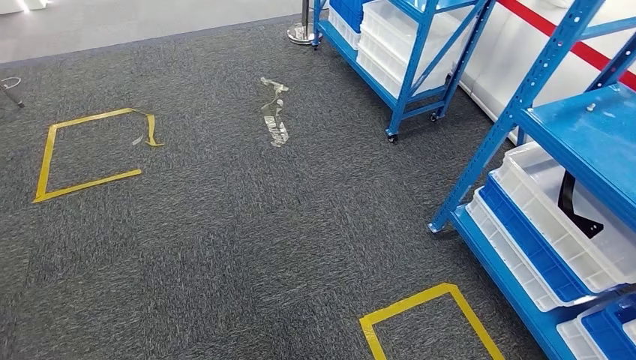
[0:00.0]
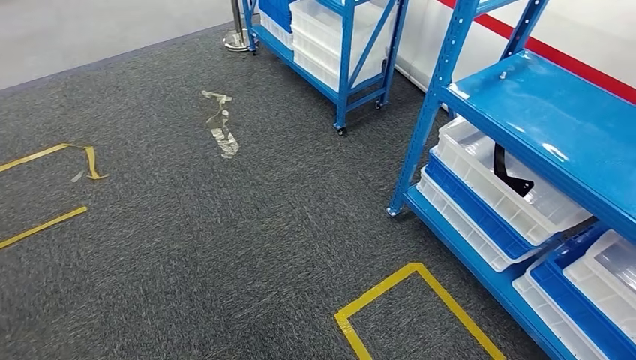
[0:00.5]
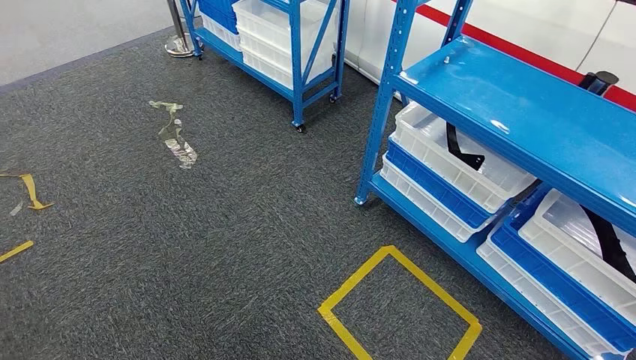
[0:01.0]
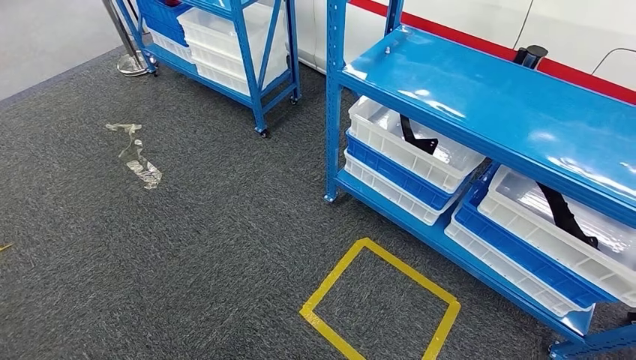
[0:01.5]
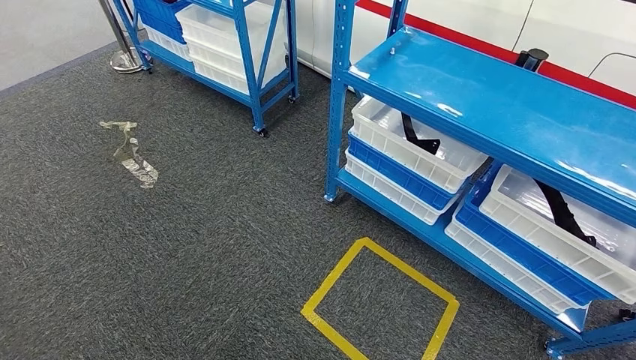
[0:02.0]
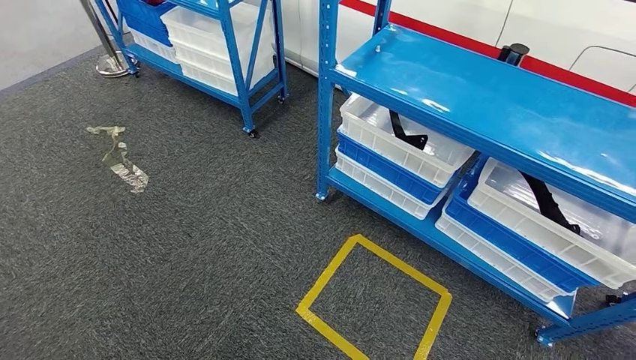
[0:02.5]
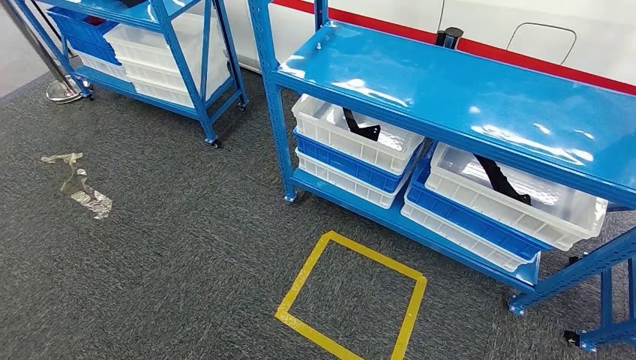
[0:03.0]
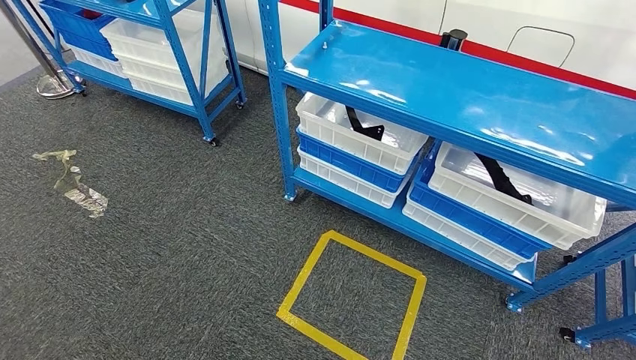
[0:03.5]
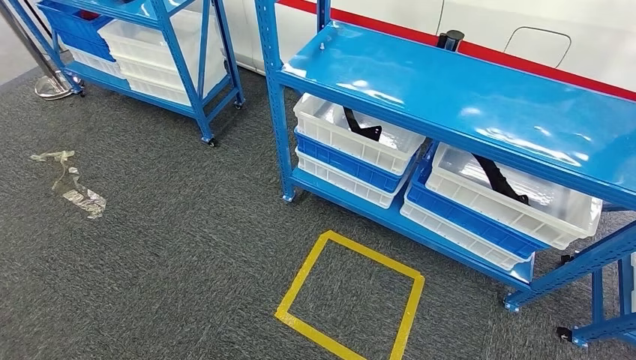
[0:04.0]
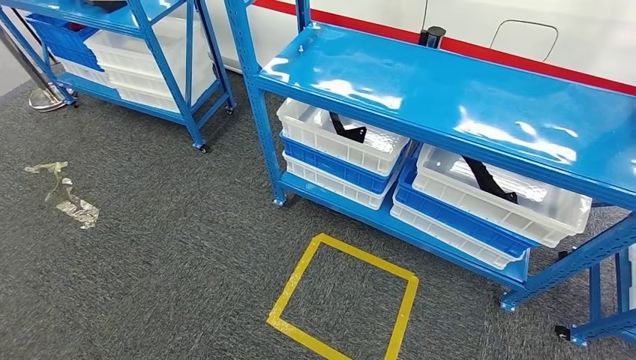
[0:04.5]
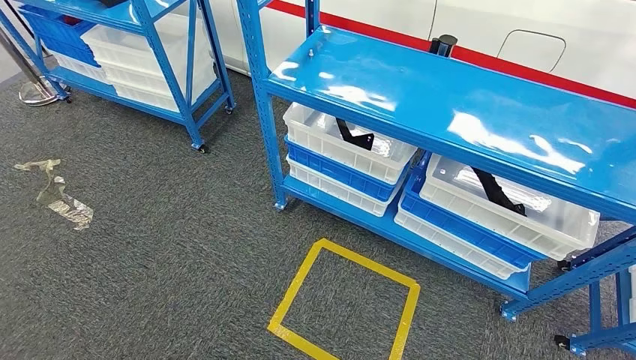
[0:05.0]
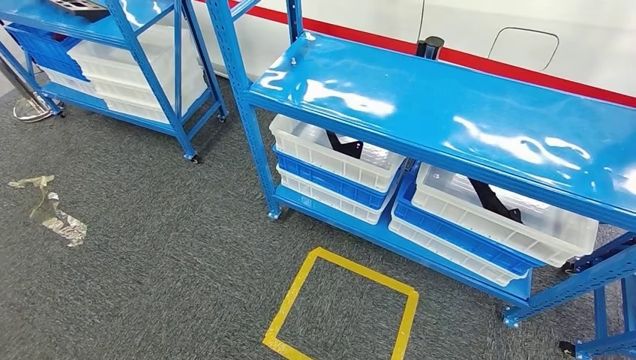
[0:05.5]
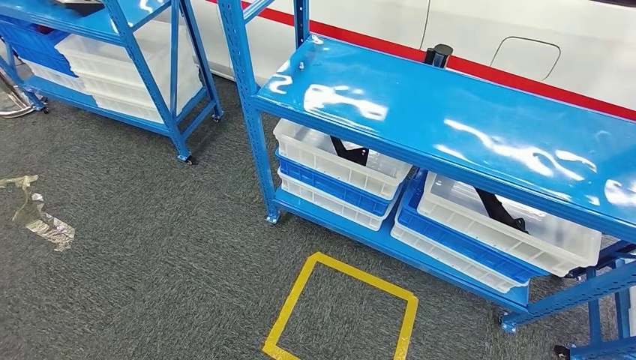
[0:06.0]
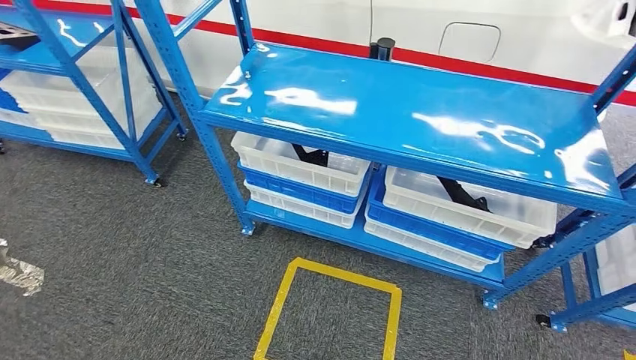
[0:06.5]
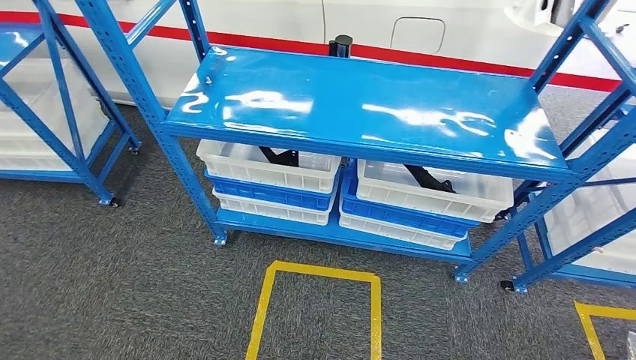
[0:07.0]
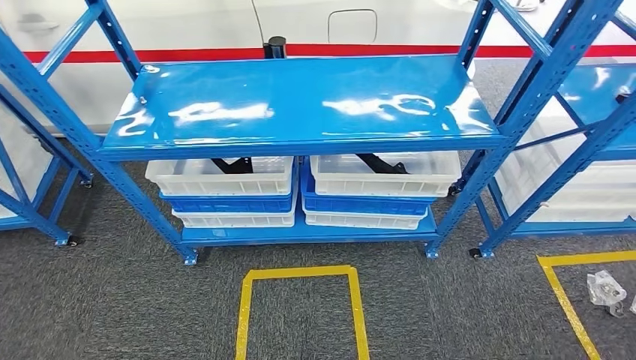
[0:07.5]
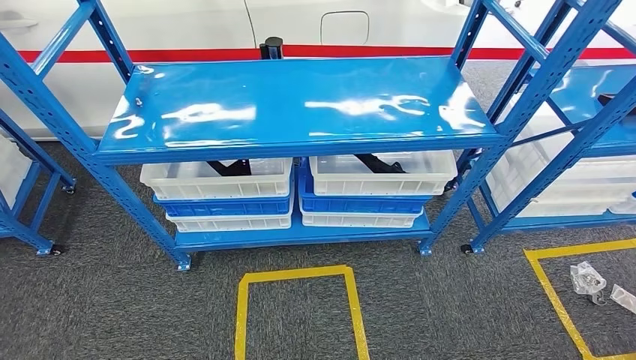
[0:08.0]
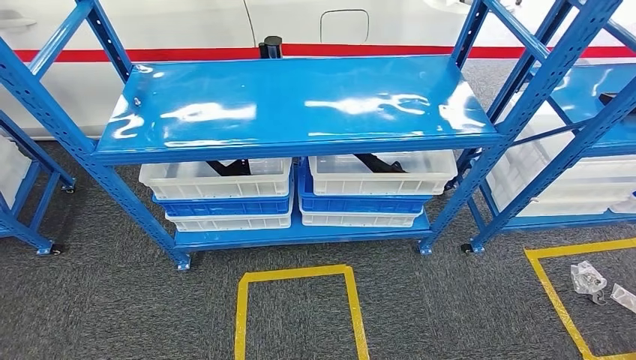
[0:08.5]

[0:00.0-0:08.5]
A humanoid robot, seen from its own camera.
Step, 0:00.0 to 0:08.5: Move to the initial position of the shelf.
